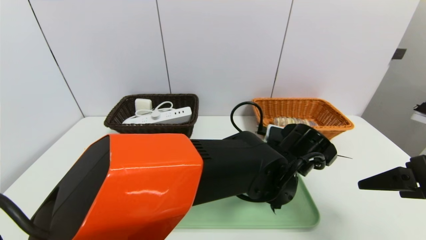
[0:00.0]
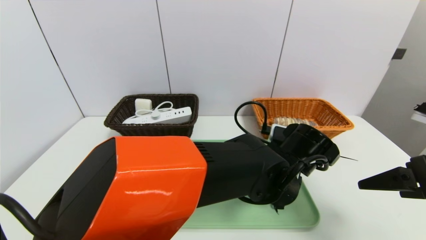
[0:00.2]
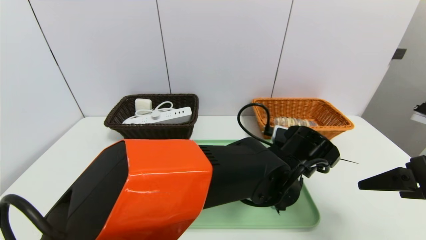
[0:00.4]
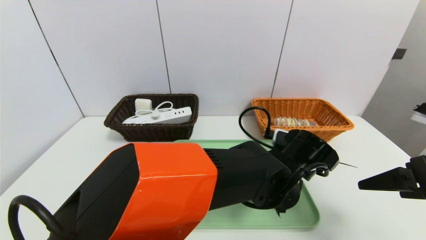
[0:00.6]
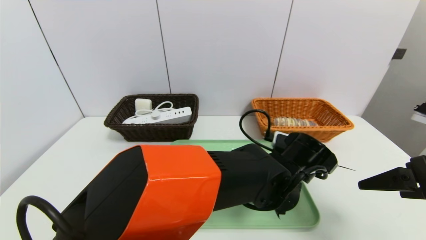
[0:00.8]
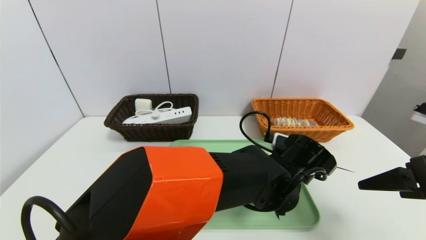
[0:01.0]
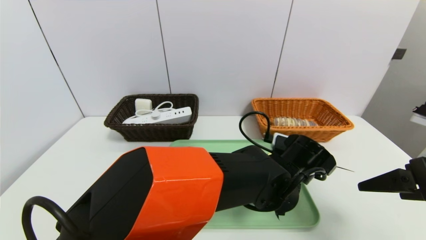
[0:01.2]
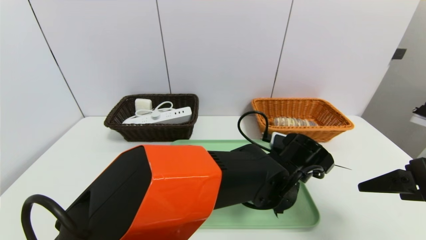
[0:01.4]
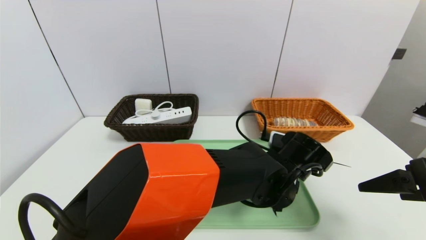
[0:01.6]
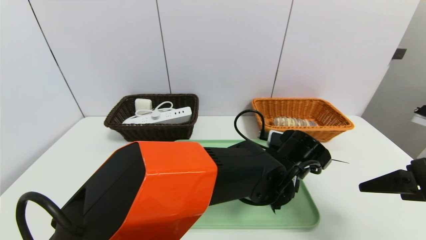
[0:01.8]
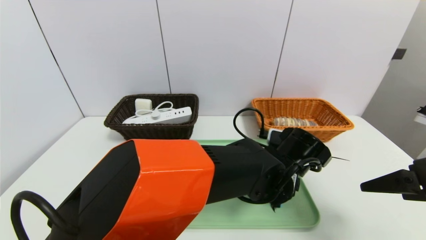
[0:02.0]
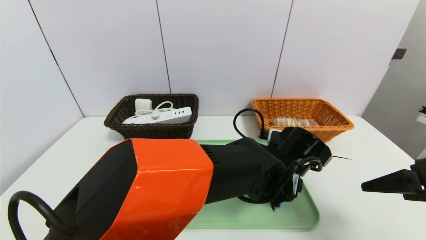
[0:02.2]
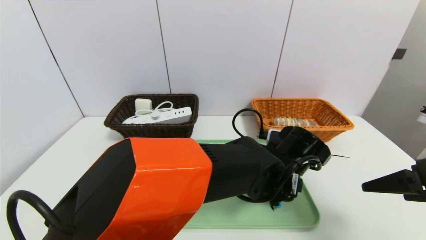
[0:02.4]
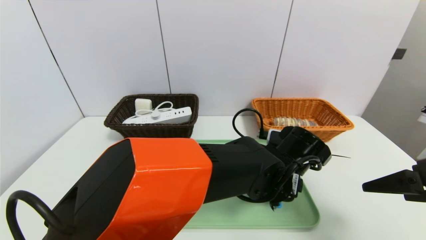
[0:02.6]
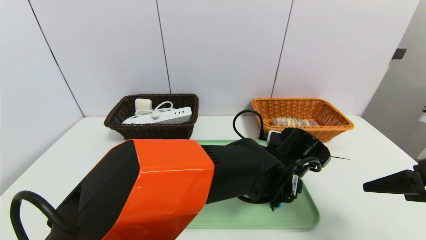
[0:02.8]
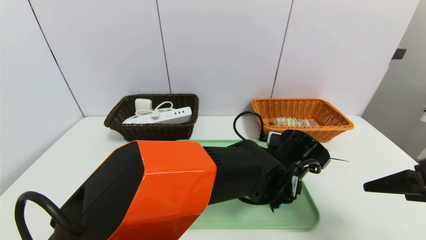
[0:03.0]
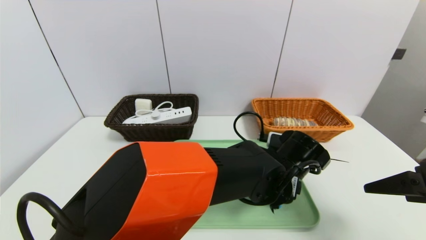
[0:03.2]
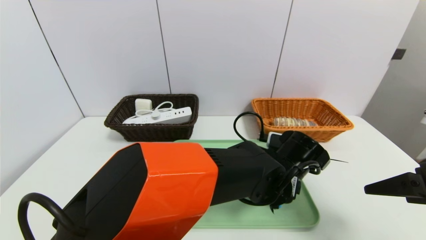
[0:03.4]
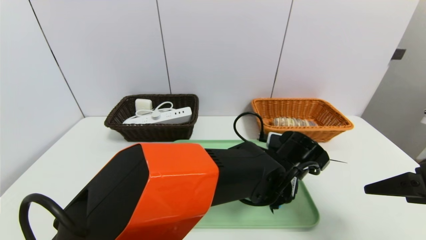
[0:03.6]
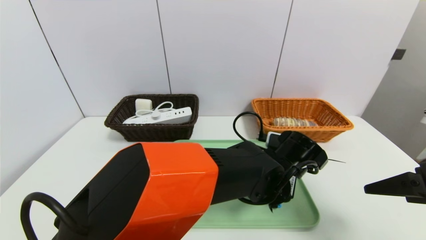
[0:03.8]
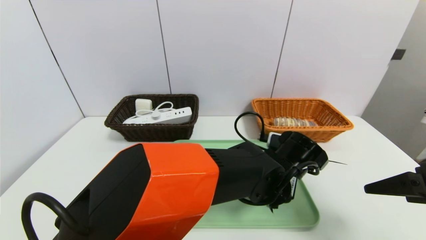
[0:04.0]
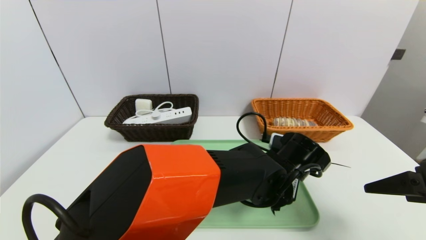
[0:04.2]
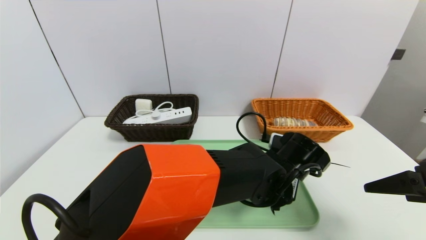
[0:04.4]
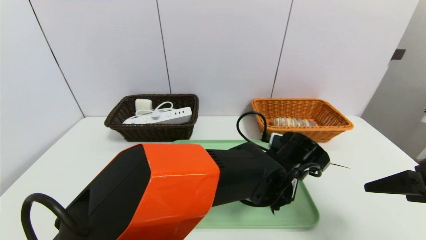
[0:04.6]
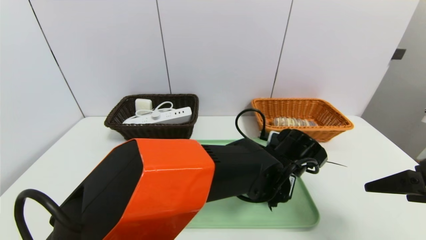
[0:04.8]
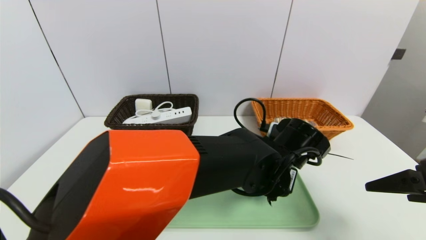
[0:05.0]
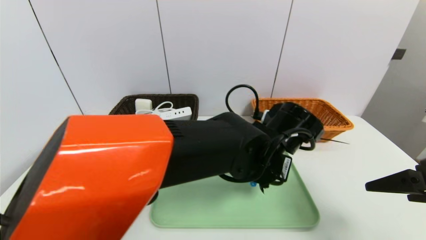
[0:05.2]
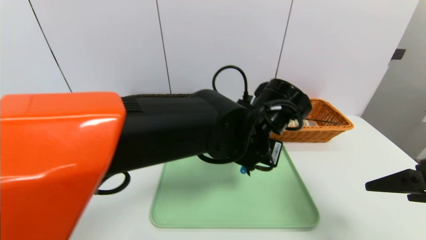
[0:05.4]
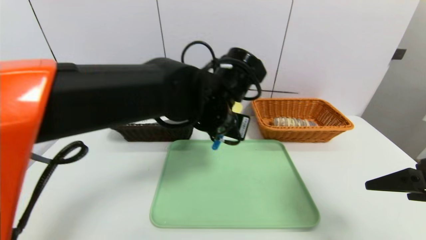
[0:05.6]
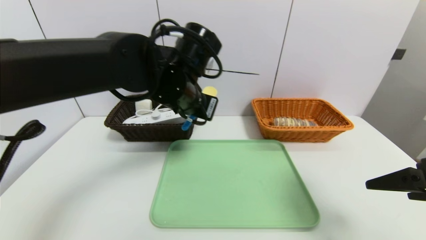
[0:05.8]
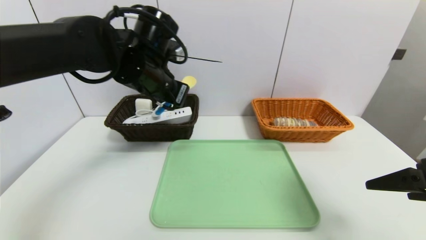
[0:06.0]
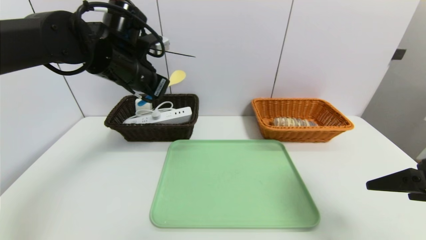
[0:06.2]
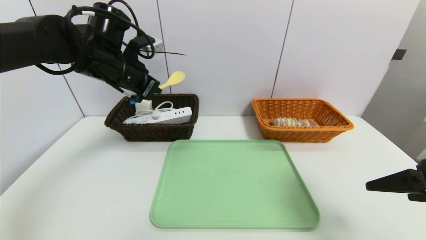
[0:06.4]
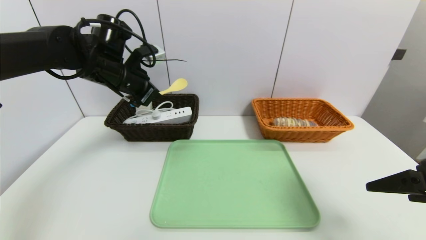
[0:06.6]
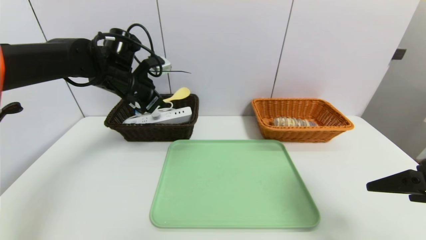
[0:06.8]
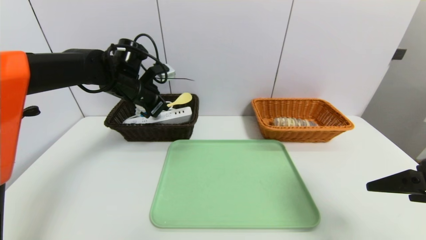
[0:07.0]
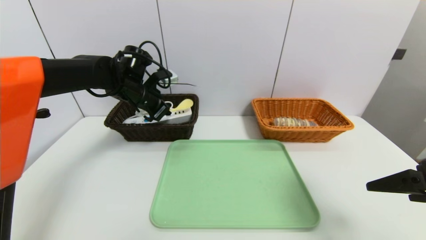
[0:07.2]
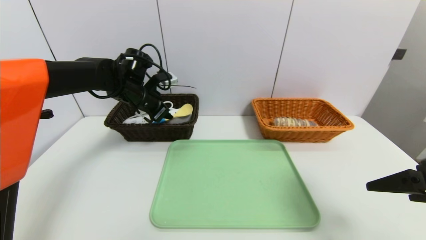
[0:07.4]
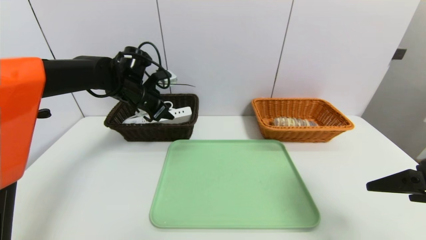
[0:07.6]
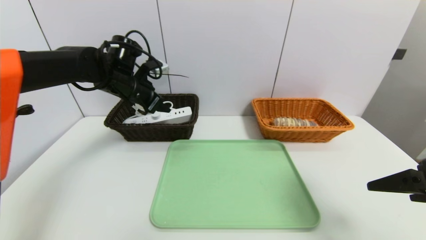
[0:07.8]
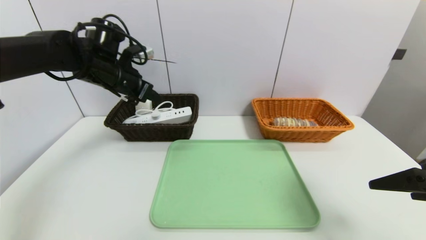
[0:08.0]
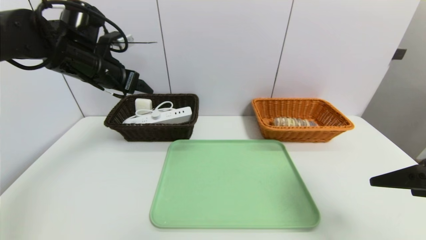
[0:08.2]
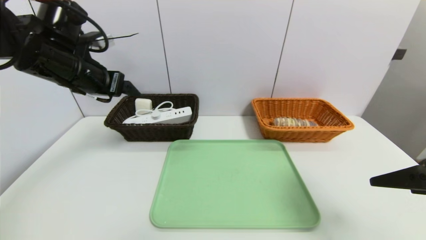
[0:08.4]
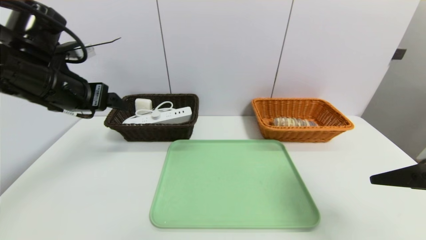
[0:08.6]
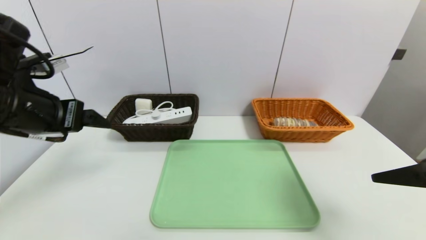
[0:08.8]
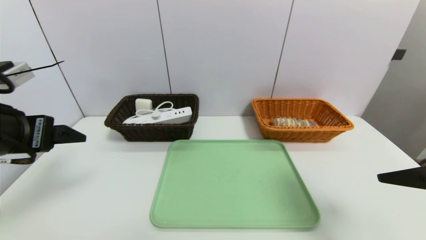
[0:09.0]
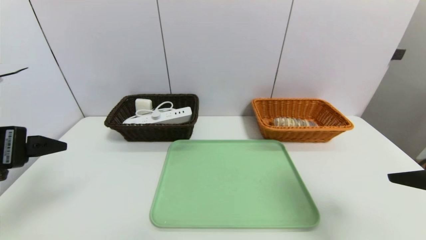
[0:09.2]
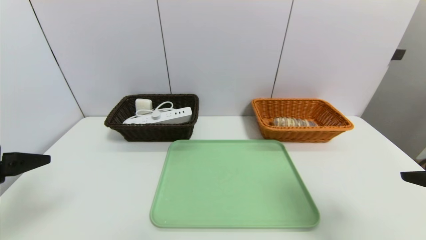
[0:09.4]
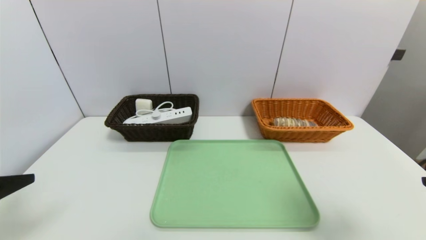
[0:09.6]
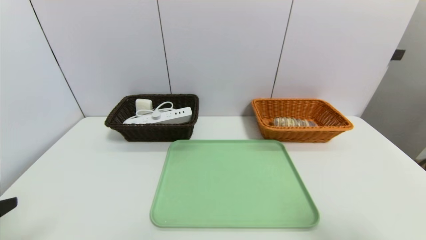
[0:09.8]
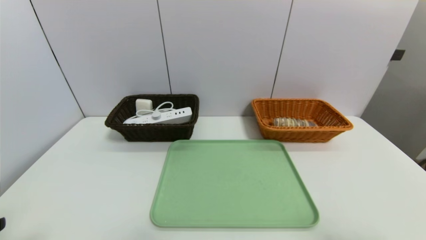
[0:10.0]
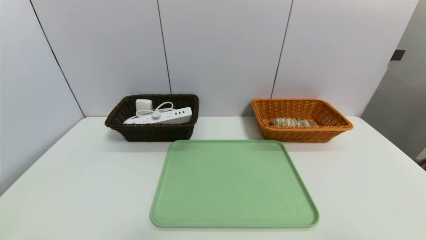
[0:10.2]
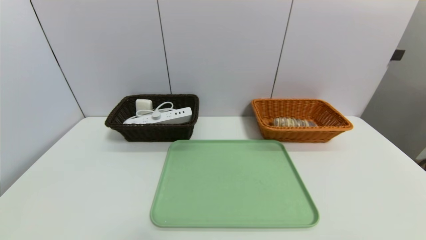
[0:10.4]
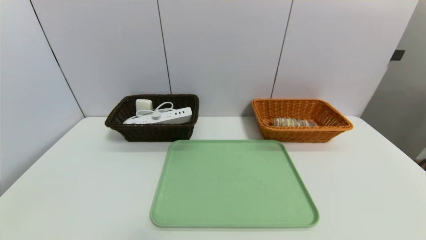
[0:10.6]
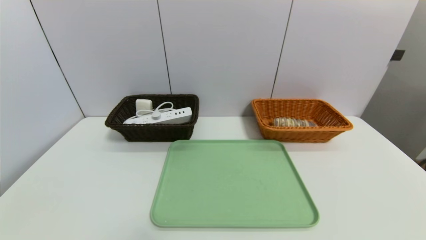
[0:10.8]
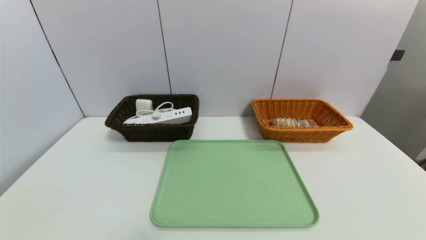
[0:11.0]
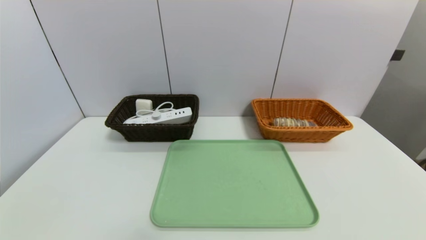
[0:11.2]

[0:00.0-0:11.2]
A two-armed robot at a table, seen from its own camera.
Task of the whole recording: place the food in the right basket with the right gripper, and place the non food items in the left basket with the left gripper.
Step, 0:00.0 to 0:07.6: Grasp the spoon and put it in the left basket.
0:00.0 to 0:03.2: The grippers stay close to where they were, moving slightly.
0:03.2 to 0:04.8: The left gripper closes.
0:04.8 to 0:06.4: The left gripper heads to the left and upward, covering about 35 cm.
0:06.4 to 0:08.0: The left gripper travels downward and back again, some 10 cm each way, and opens.
0:08.0 to 0:09.6: The left gripper goes about 30 cm backward. The right gripper travels backward by about 5 cm.
0:09.6 to 0:11.2: The grippers both shift backward and downward by about 15 cm.

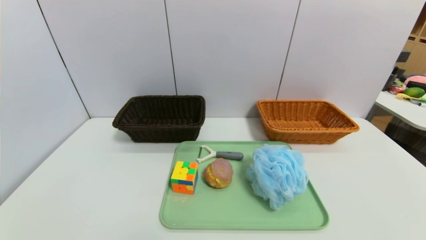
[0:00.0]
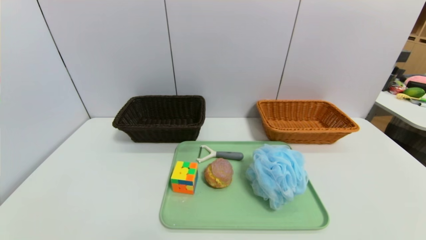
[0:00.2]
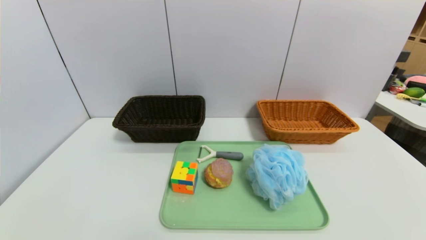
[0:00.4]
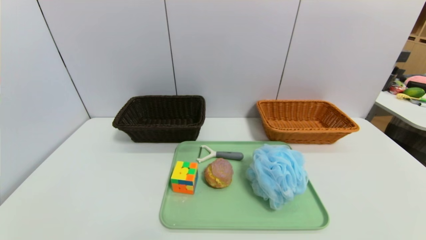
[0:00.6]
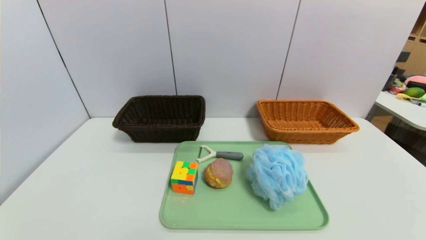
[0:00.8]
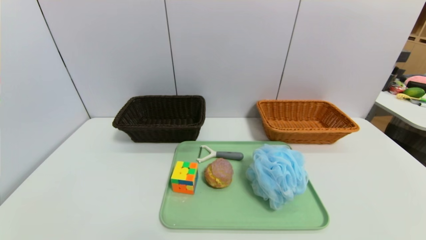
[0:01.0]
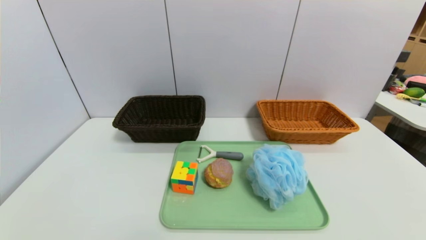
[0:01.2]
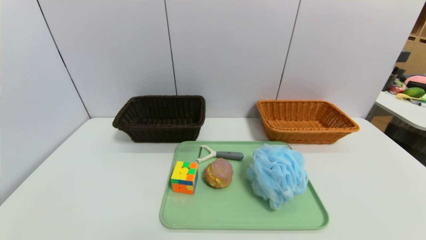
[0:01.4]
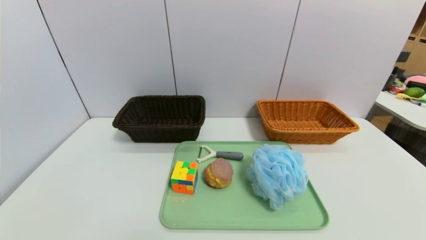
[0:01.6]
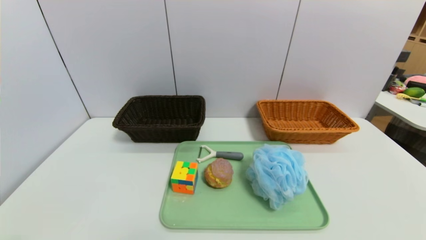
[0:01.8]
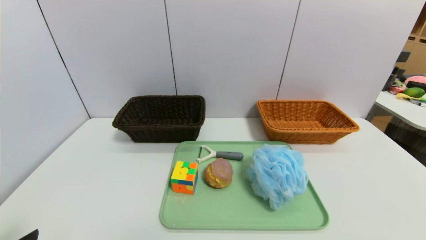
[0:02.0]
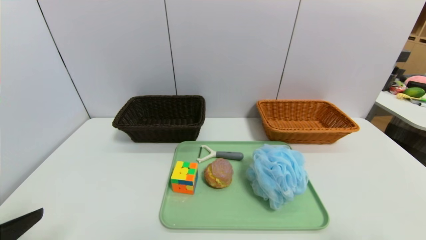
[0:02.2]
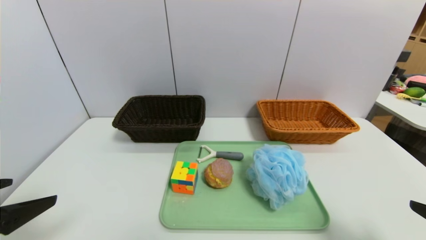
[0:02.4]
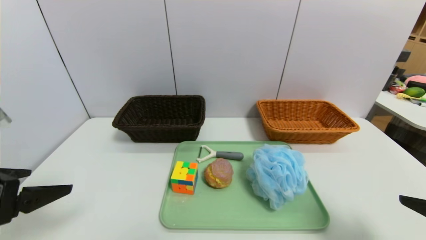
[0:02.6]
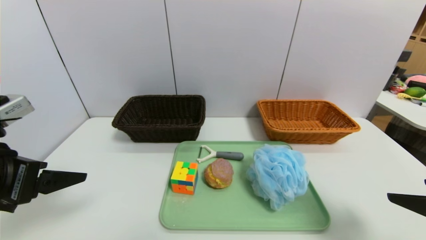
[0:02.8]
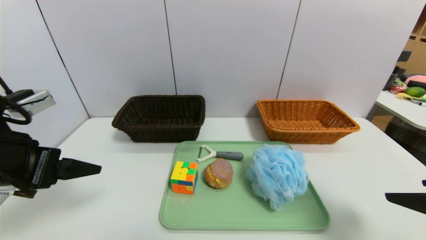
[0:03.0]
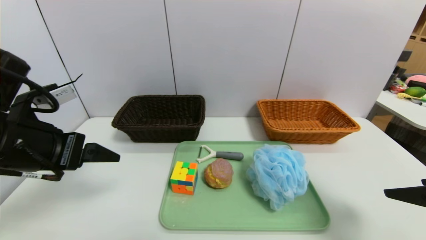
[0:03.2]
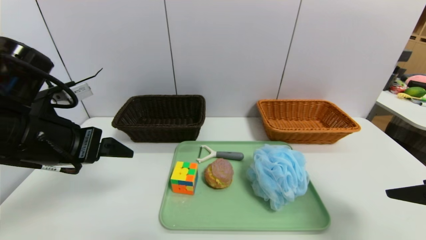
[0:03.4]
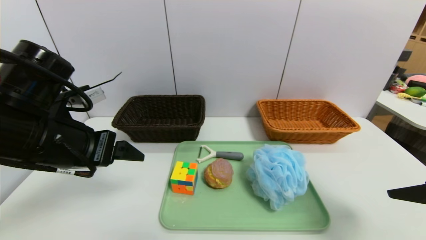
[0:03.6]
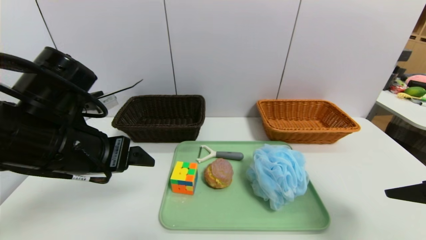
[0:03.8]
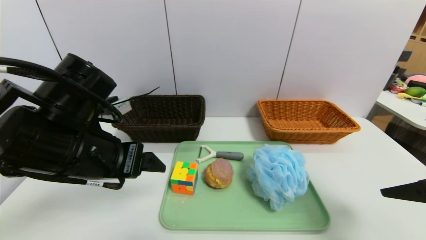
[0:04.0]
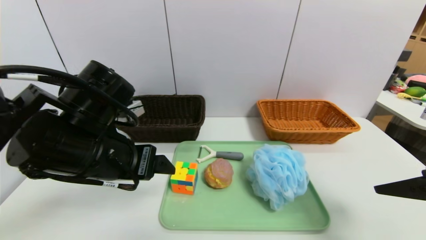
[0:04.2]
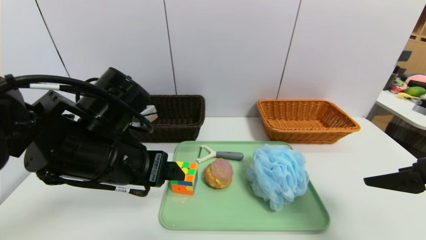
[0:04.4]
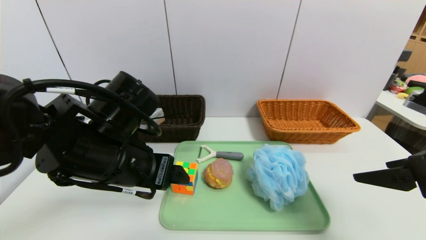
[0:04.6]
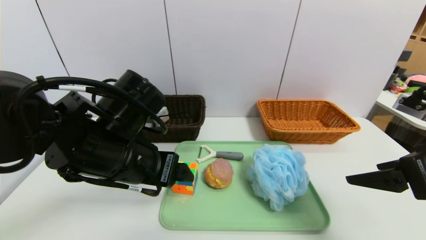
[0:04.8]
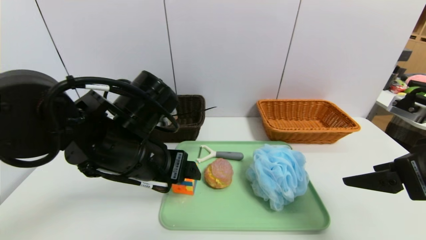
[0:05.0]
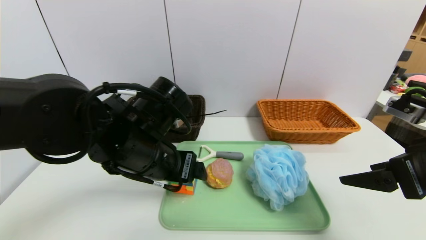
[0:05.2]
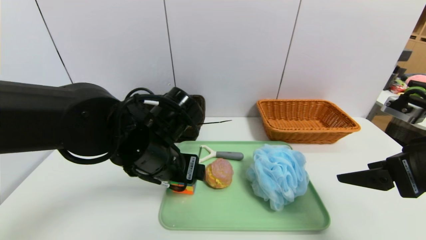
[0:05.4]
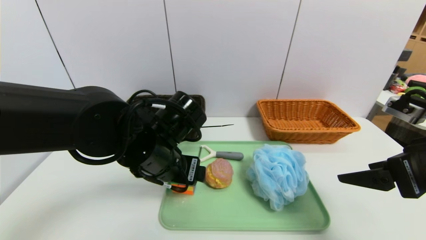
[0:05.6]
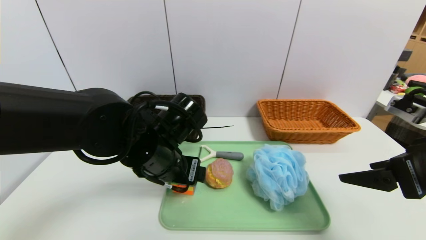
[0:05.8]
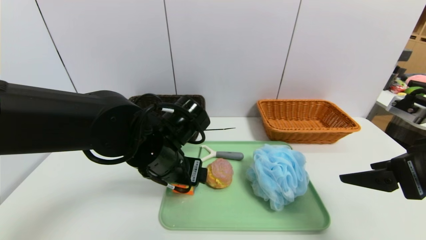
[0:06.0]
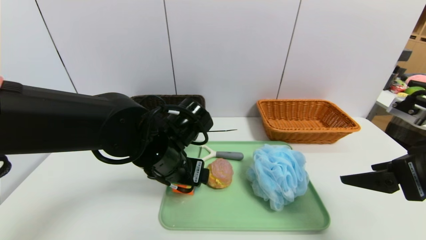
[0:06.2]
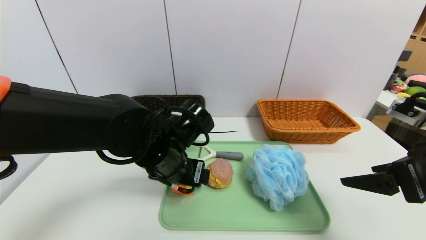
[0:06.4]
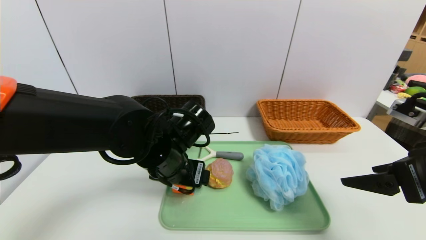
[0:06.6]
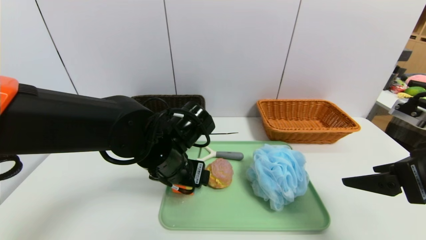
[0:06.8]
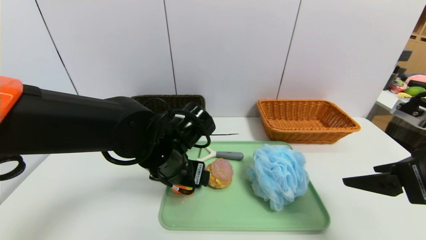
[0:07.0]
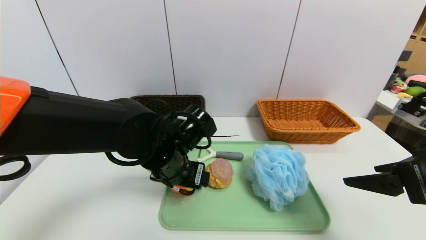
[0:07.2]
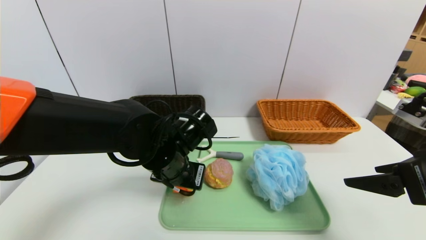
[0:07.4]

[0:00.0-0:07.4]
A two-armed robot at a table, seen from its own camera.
Task of the whole recording: place the food in the right basket with the right gripper, and place the non food items in the left basket with the left gripper.
0:01.4 to 0:03.0: The two grippers go about 25 cm forward and upward.
0:03.0 to 0:04.4: The left gripper travels to the right by approximately 15 cm.
0:04.4 to 0:06.0: The left gripper moves to the right, about 5 cm.
0:06.0 to 0:07.4: The left gripper closes its fingers.
